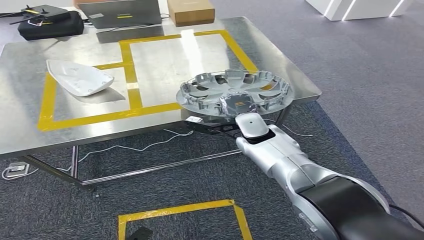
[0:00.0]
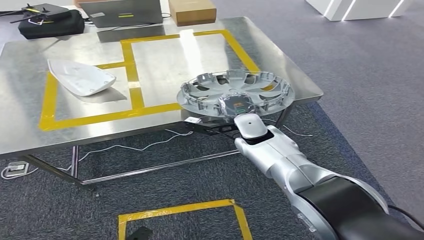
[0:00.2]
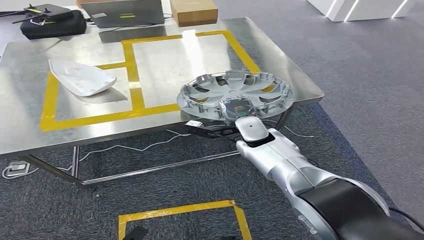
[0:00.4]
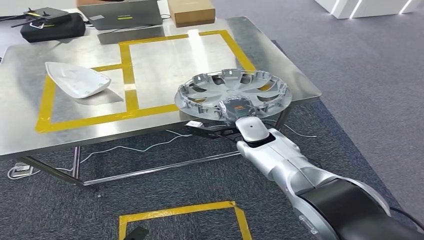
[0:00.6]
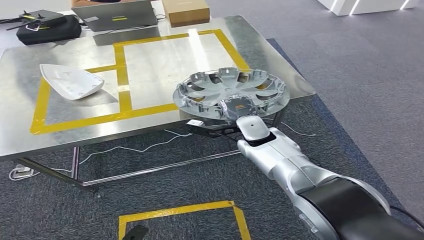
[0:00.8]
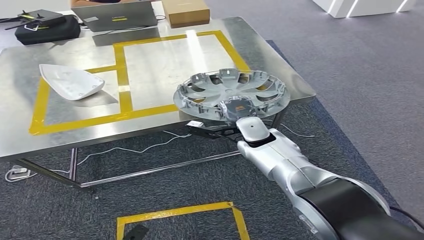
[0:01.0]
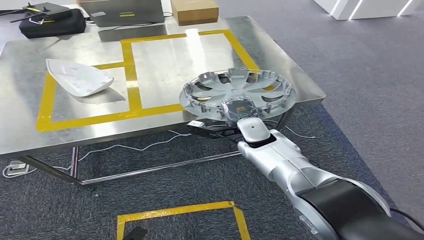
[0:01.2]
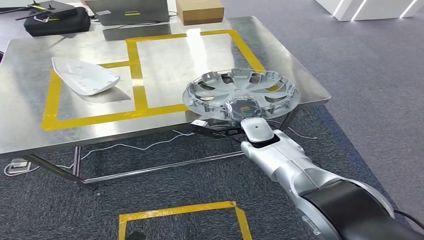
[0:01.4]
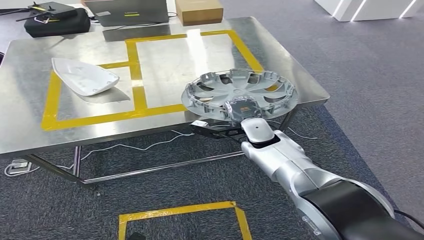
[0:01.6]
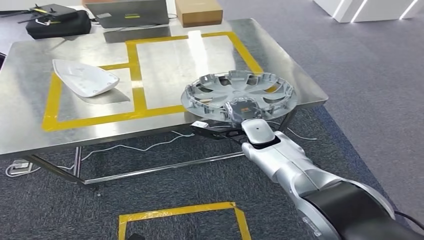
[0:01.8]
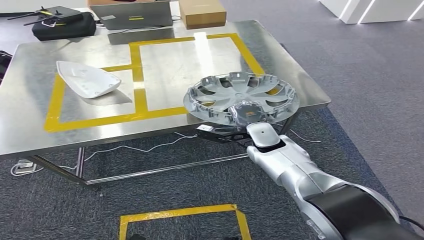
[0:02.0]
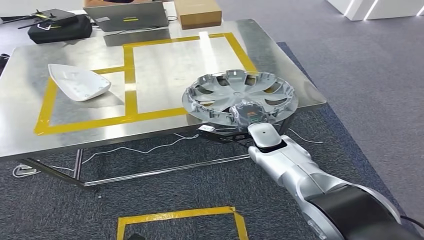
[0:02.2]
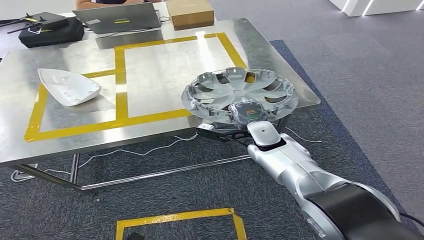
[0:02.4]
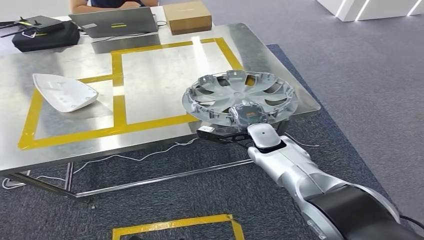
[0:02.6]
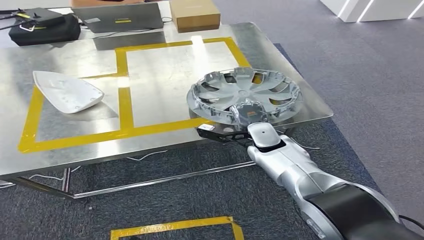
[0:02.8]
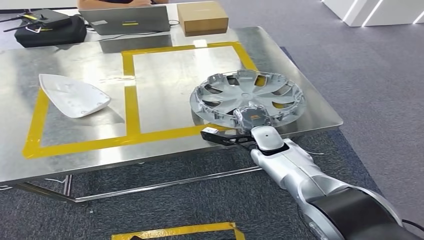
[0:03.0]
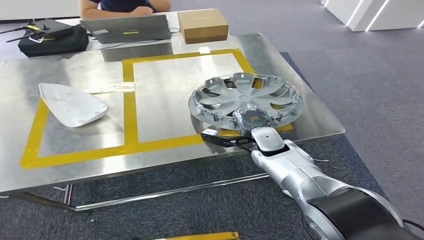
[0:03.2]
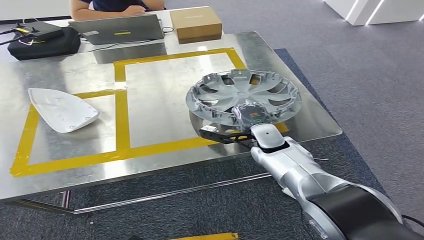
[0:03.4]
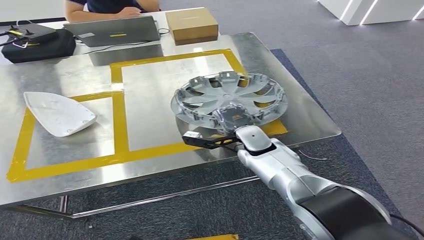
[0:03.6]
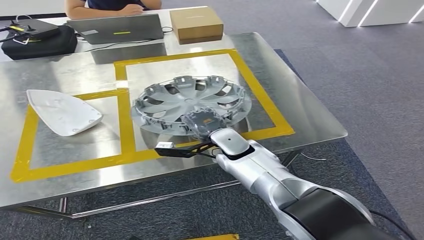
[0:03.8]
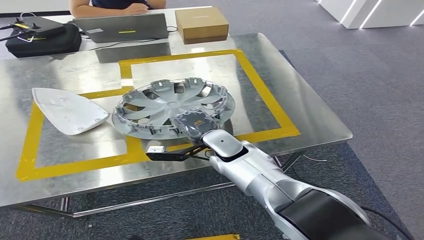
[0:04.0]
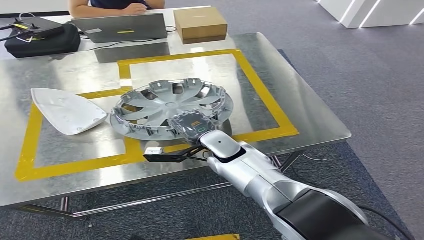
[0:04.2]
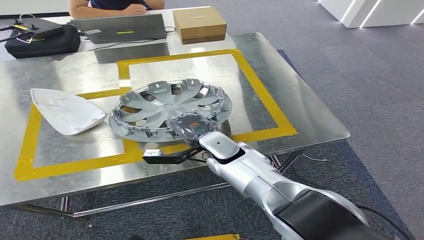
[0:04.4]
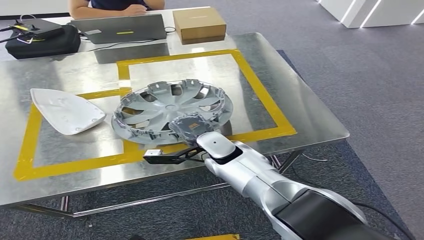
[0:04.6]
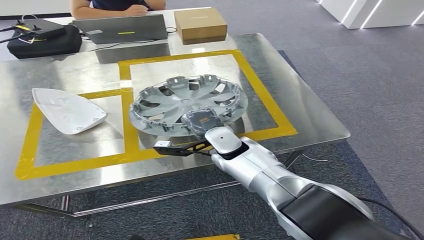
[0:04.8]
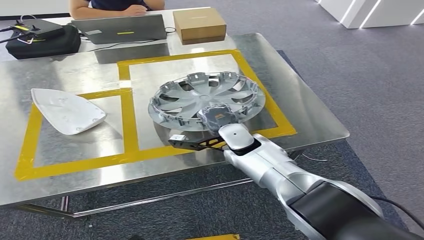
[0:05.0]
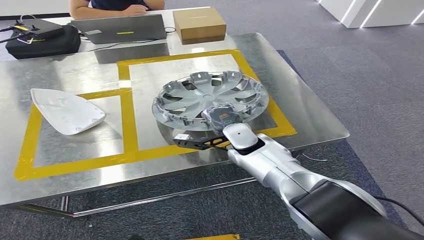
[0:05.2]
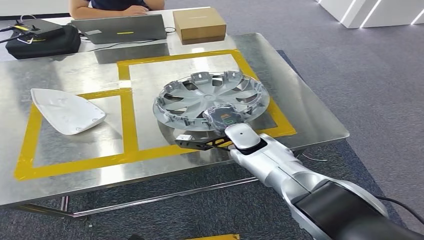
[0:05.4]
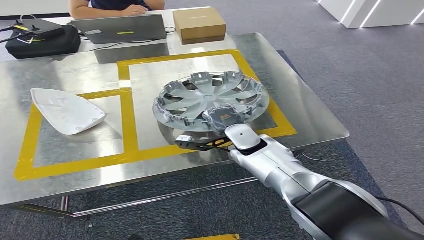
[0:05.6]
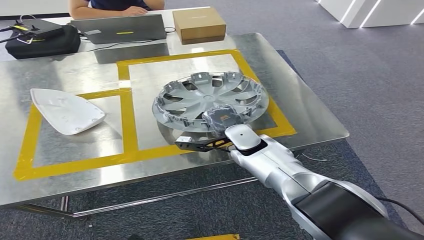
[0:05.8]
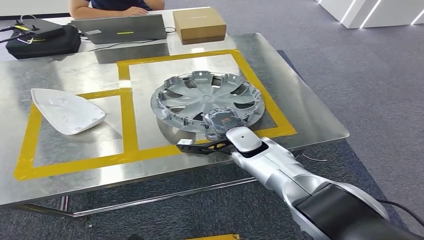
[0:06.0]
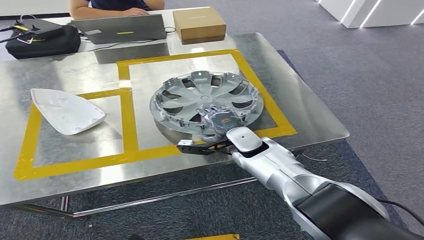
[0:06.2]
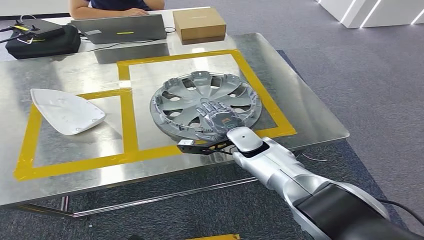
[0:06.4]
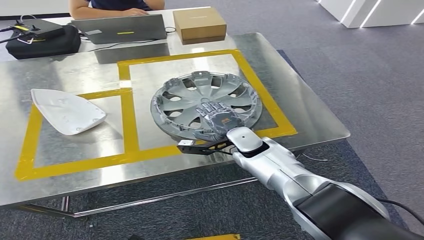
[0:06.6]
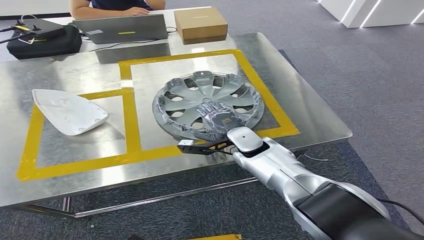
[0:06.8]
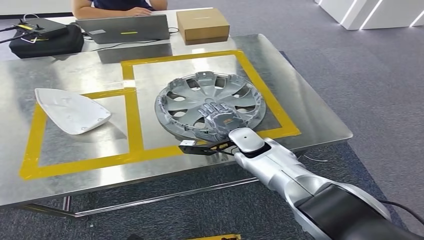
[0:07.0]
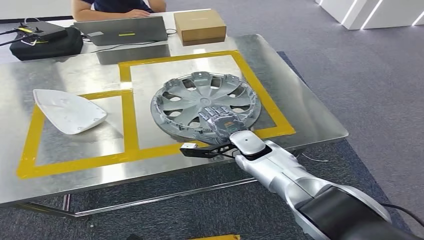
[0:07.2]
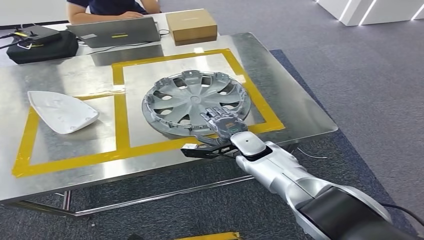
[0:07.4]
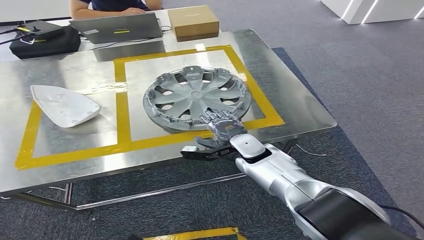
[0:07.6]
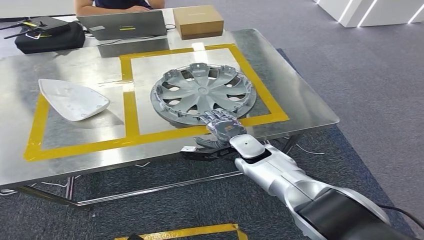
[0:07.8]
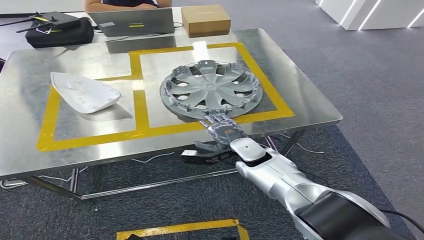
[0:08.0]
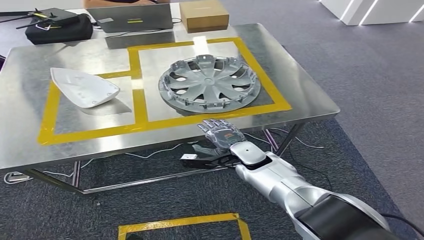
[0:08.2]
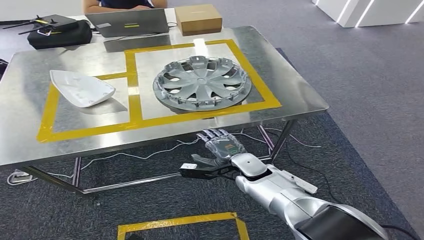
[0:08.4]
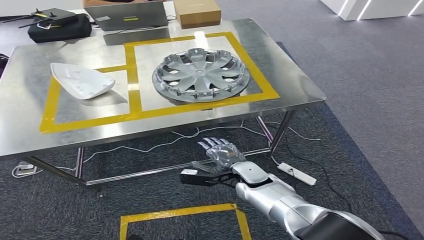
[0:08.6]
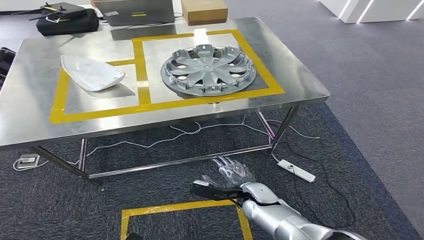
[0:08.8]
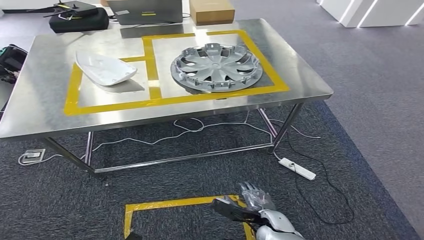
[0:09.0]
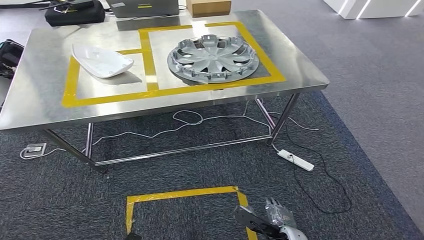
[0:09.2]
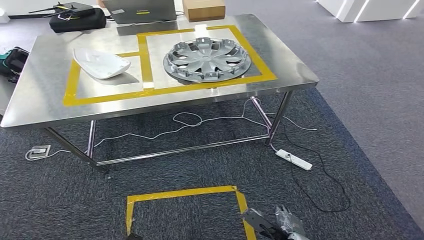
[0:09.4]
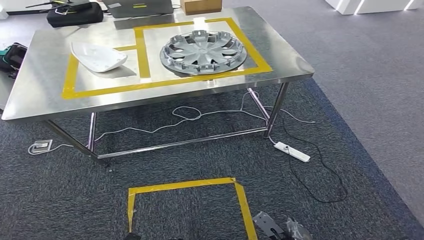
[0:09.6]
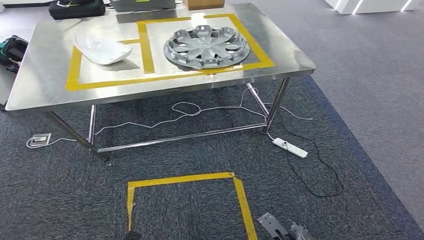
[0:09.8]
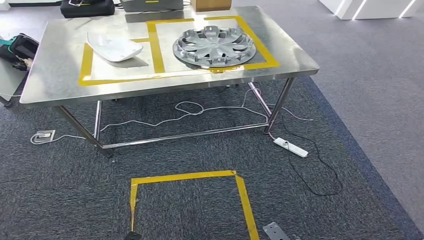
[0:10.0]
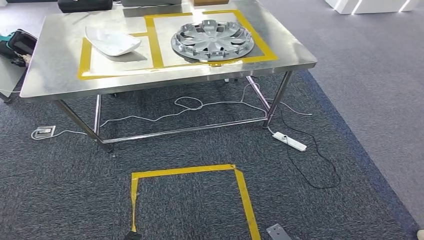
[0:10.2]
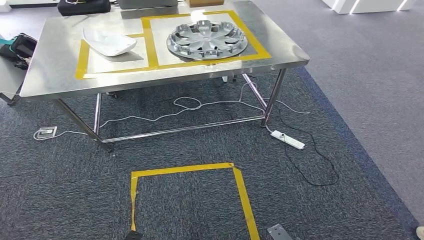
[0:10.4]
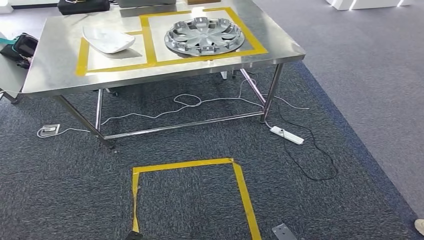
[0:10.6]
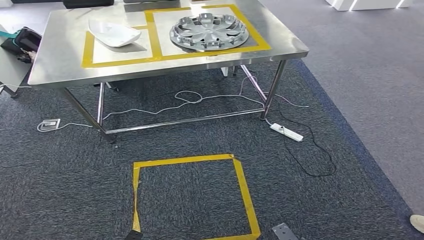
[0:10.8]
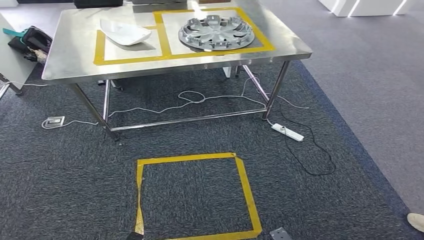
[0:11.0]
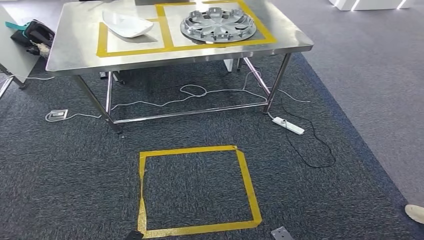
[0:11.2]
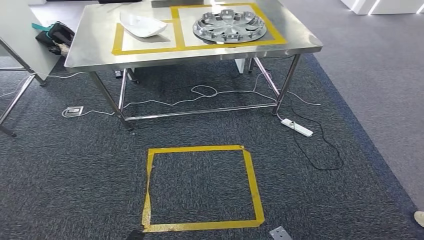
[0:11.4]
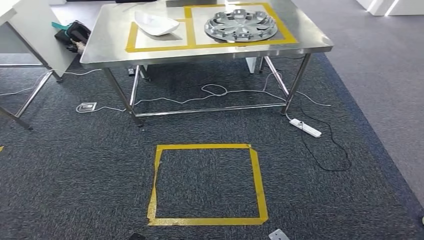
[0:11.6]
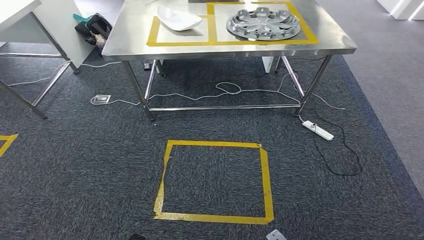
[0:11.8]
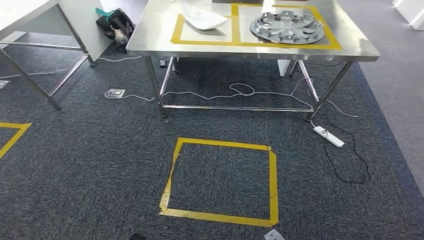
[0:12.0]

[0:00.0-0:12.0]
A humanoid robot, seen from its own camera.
Step, 0:00.0 to 0:08.4: Insert the small parts into the corresponding holes on the workbench.
0:00.0 to 0:01.6: There are only small adjustments of the hands.
0:04.4 to 0:06.0: The right hand moves to the right, about 5 cm.

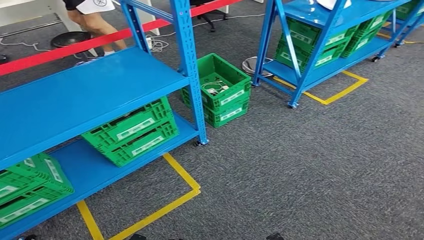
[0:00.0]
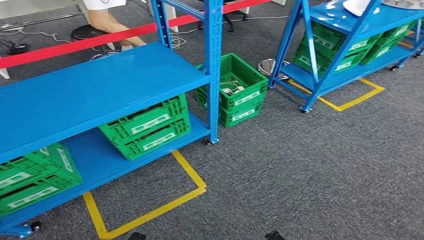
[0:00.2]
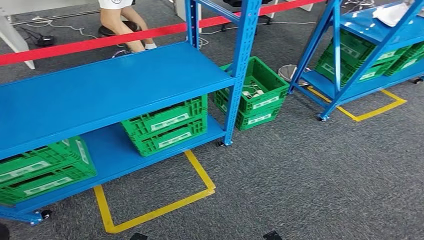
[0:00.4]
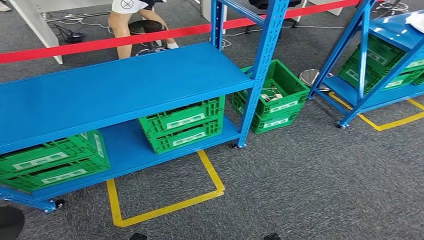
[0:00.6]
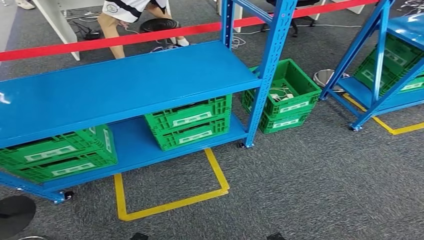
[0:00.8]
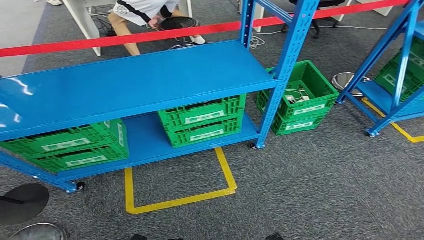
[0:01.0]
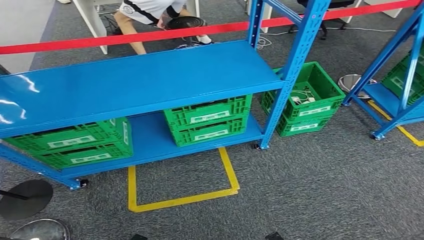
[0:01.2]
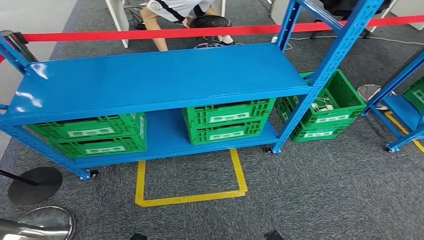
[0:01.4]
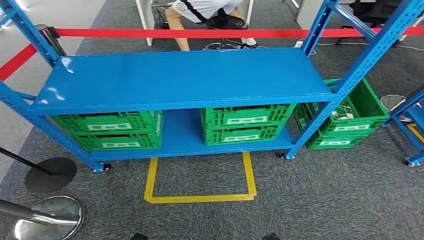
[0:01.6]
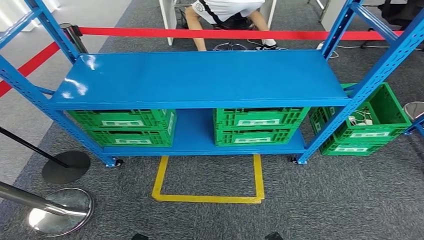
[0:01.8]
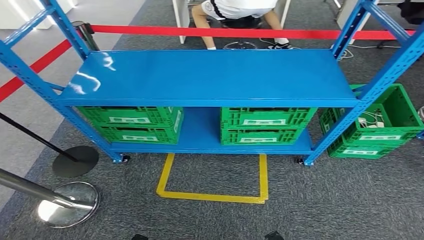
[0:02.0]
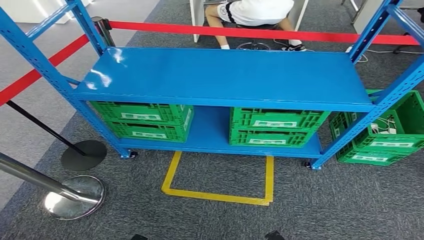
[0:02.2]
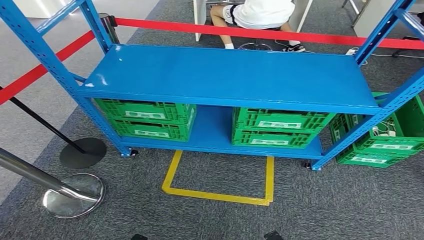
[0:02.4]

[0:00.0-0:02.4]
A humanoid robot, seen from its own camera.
Step, 0:00.0 to 0:02.4: Move to the initial position of the workbench.
